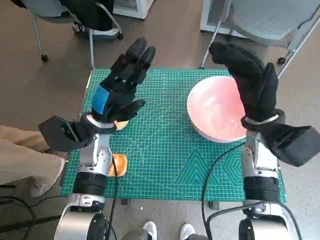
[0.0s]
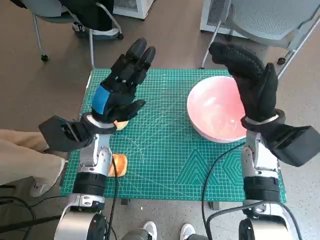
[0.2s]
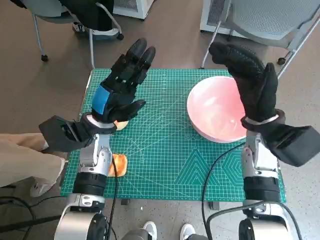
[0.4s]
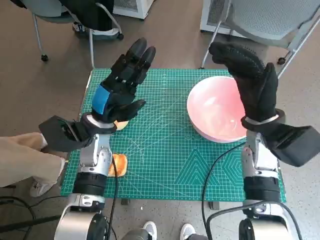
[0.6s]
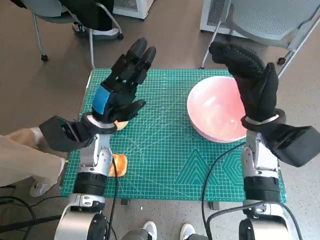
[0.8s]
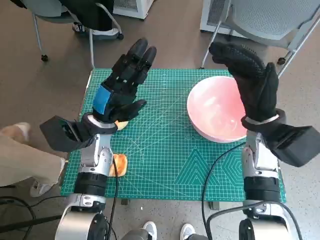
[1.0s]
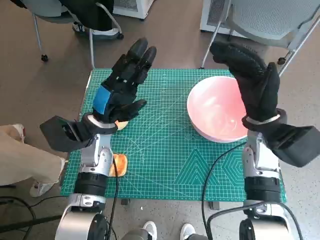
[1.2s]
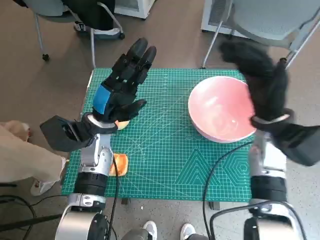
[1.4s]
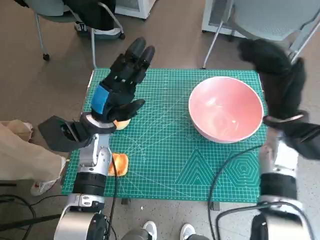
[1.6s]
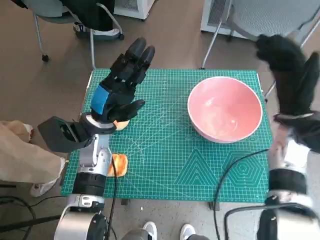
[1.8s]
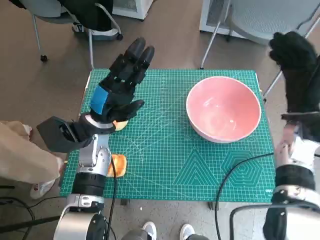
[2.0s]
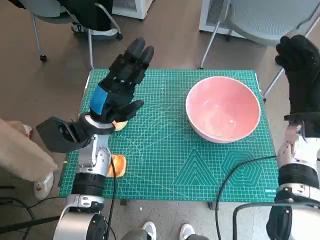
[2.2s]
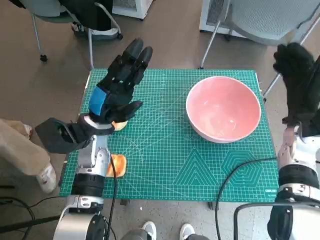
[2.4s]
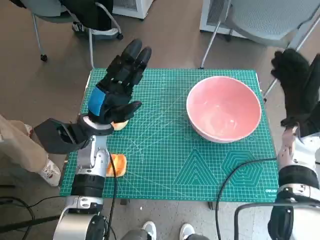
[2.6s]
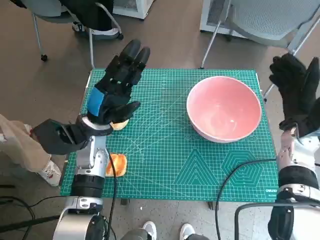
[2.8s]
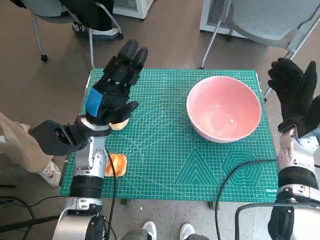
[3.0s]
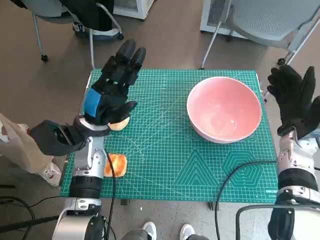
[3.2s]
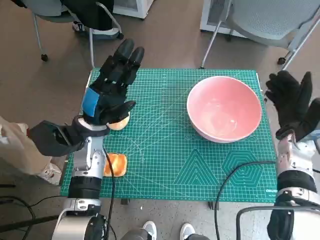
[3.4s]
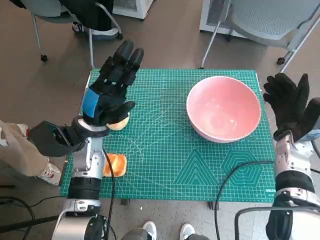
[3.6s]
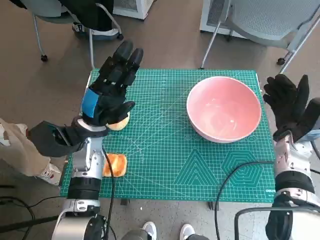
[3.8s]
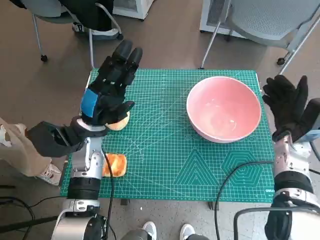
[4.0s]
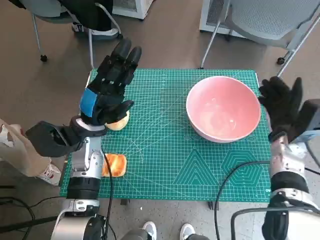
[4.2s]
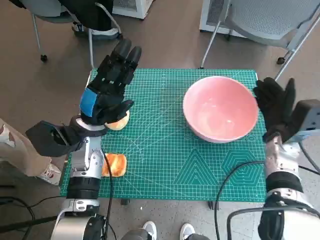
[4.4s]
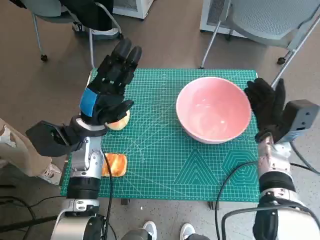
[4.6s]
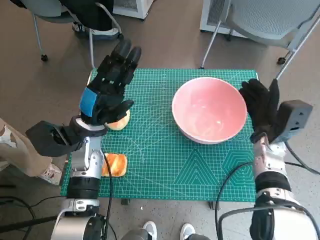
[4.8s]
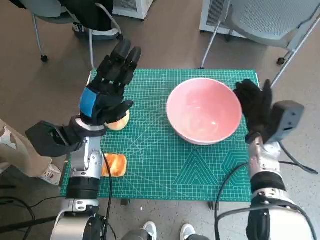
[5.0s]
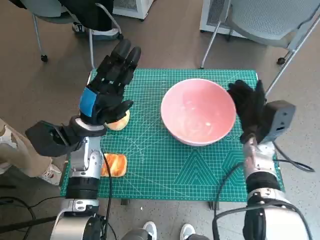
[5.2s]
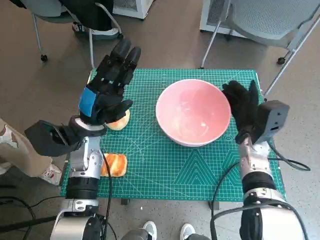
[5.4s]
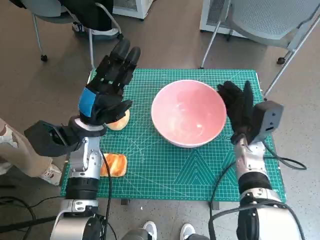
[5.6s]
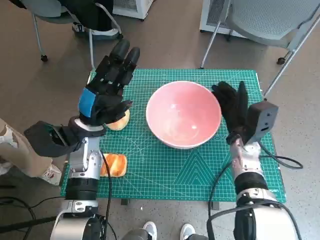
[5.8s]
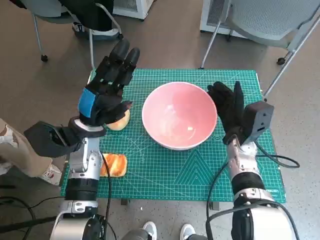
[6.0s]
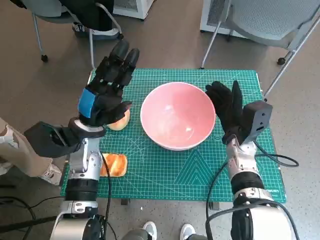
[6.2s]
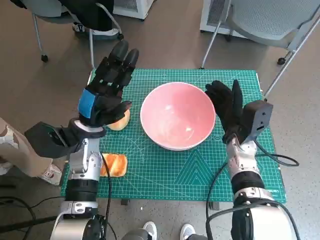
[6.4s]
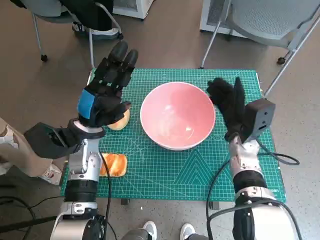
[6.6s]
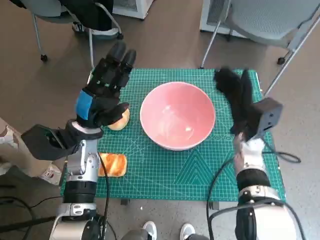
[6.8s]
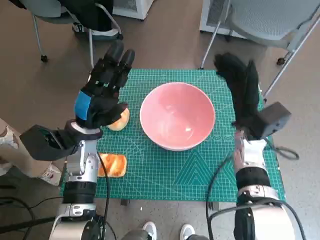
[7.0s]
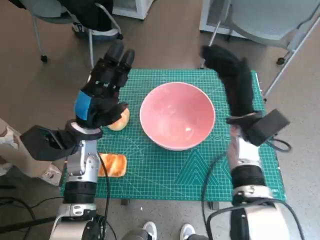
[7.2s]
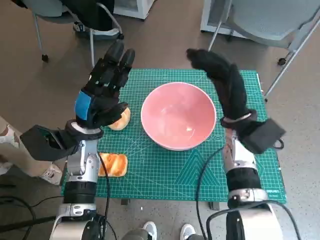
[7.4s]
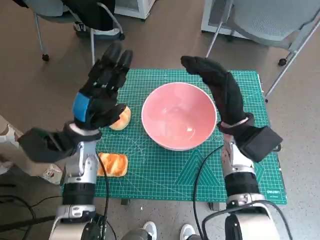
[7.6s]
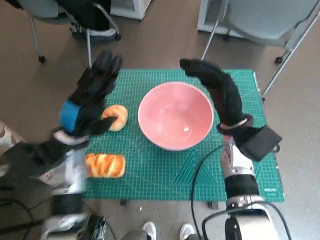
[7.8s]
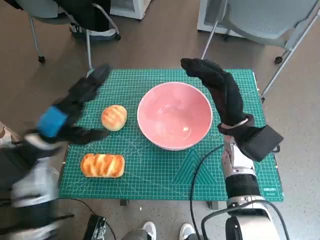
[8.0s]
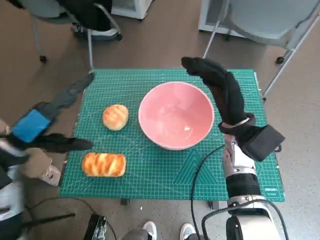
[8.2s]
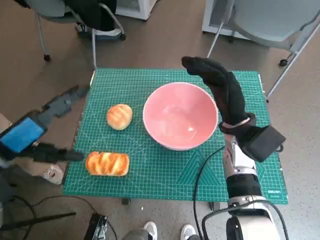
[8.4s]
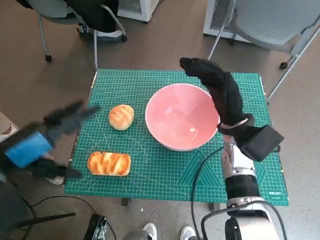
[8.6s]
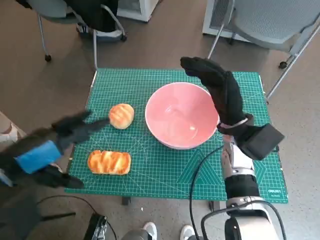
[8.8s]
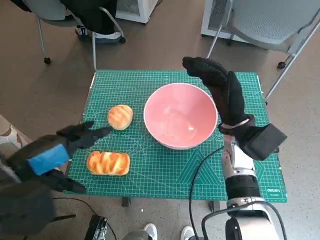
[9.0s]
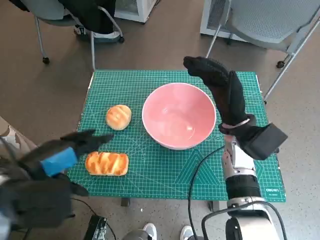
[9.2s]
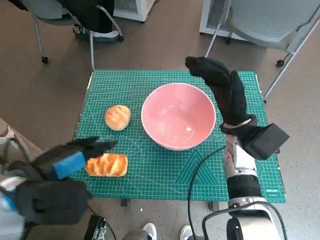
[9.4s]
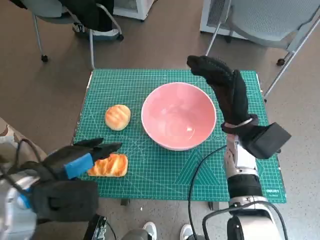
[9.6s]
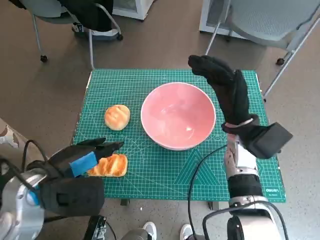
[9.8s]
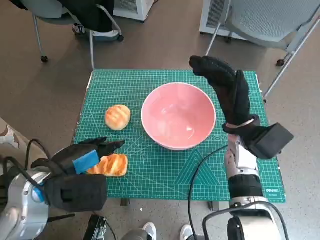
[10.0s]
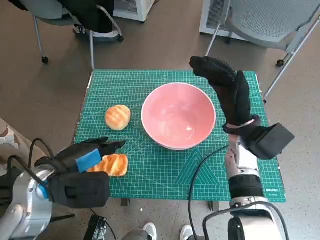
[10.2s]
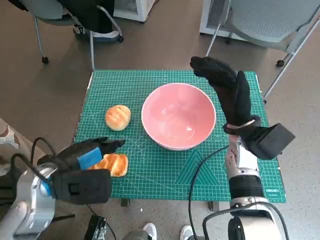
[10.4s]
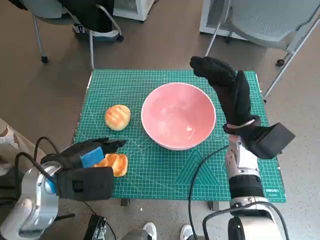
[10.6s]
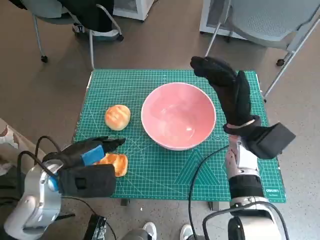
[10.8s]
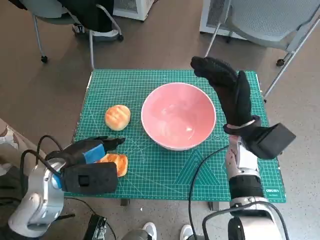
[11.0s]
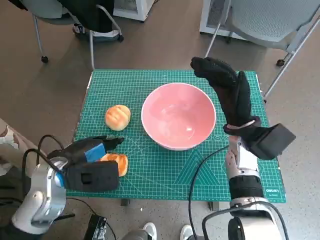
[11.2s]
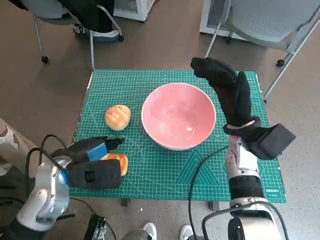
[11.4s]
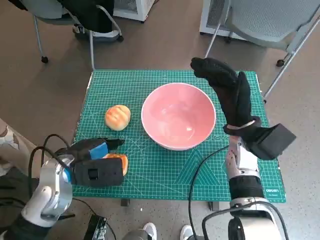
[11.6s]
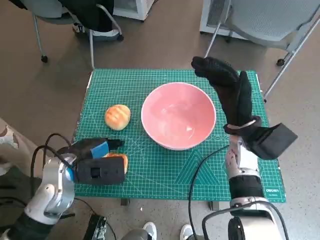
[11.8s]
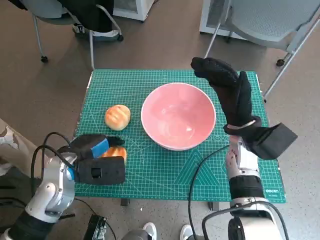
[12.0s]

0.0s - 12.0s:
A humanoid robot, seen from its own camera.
Step, 0.0s - 6.6s: Move the pink bowl to the center of table with right hand.
1.6s - 3.0s: The right hand heads to the right, covering roughly 5 cm.
3.0s - 4.4s: The hands make only small movements.
4.4s - 6.0s: The right hand is displaced to the left by some 10 cm.
6.0s - 7.6s: The right hand heads upward, covering about 5 cm.
7.6s - 9.0s: The left hand goes some 15 cm backward, upward and to the left.
9.0s - 10.4s: The left hand is displaced downward by about 5 cm.
10.4s - 12.0s: The left hand shifts by about 5 cm.

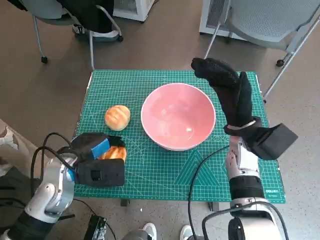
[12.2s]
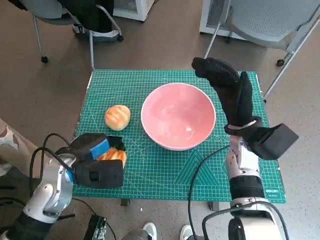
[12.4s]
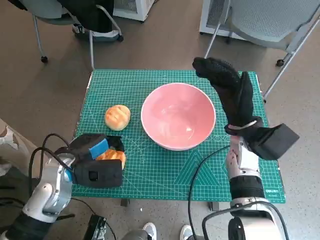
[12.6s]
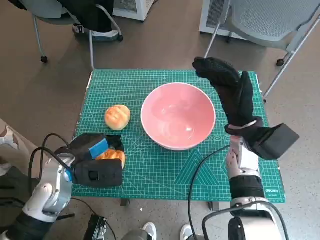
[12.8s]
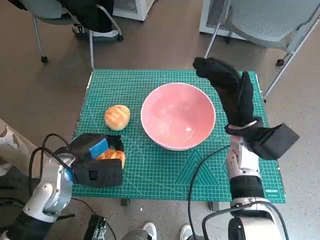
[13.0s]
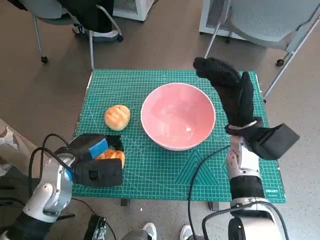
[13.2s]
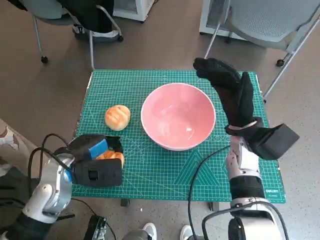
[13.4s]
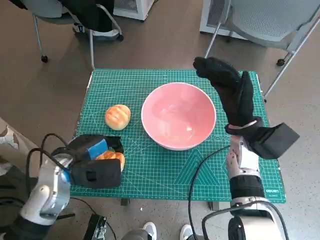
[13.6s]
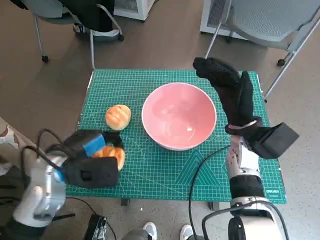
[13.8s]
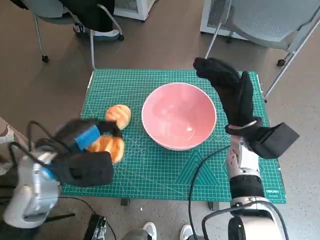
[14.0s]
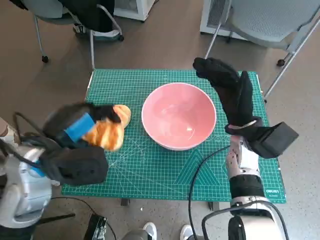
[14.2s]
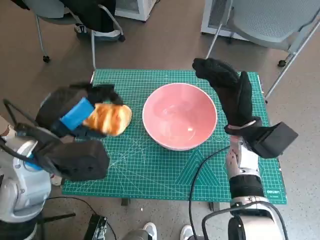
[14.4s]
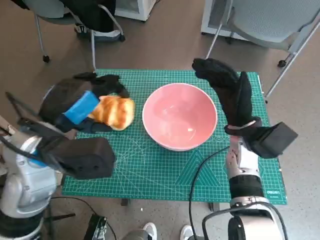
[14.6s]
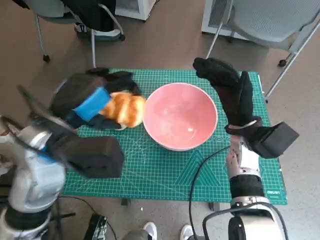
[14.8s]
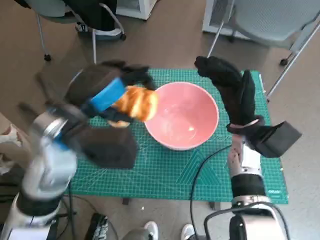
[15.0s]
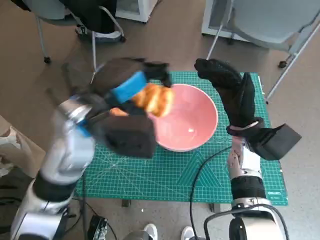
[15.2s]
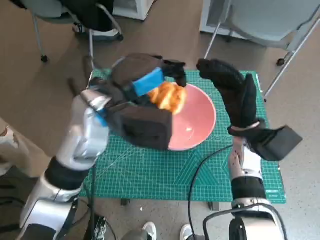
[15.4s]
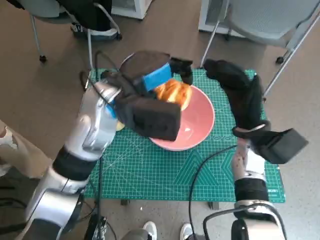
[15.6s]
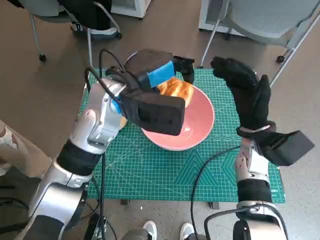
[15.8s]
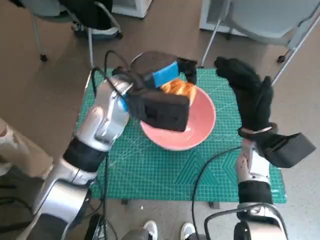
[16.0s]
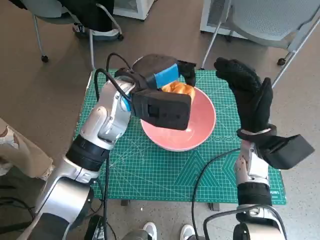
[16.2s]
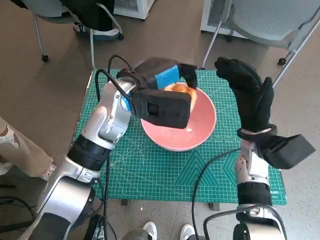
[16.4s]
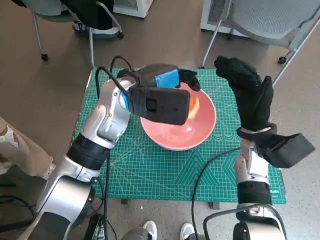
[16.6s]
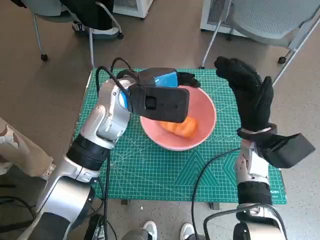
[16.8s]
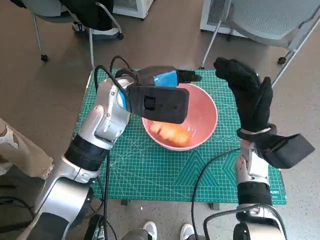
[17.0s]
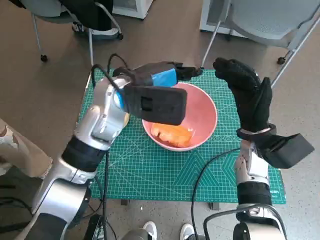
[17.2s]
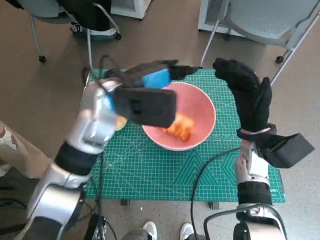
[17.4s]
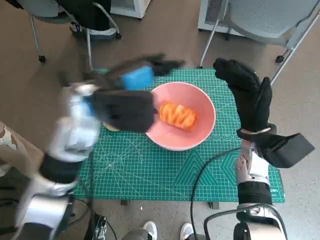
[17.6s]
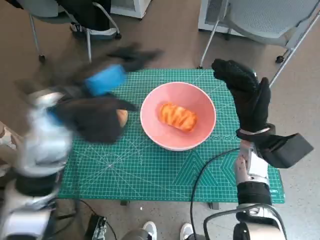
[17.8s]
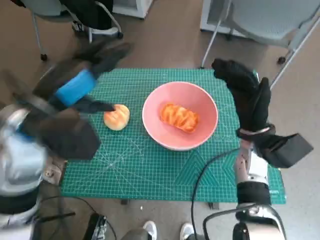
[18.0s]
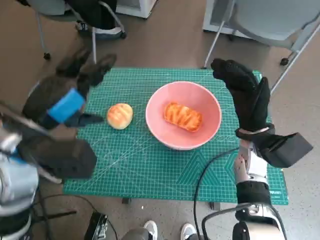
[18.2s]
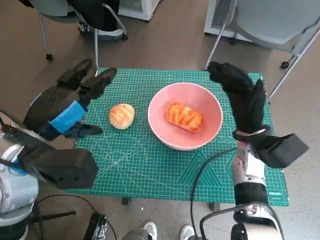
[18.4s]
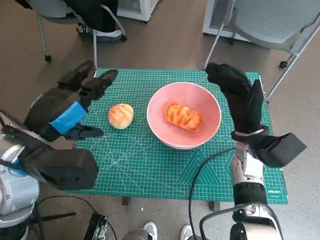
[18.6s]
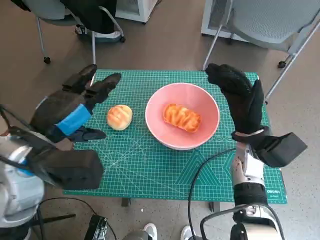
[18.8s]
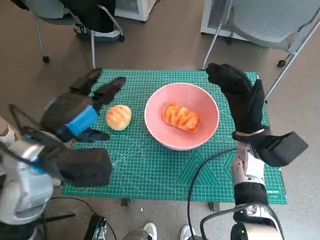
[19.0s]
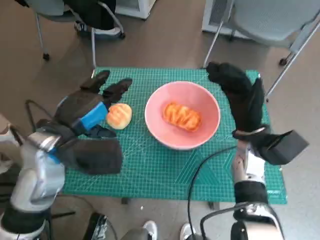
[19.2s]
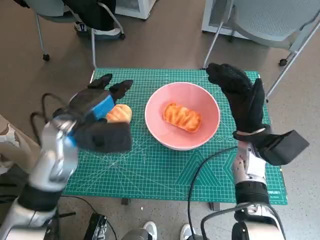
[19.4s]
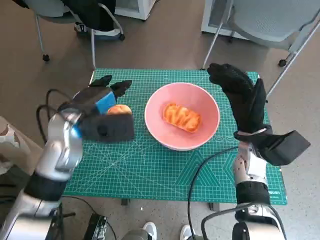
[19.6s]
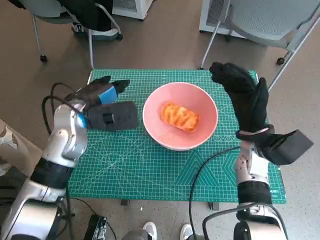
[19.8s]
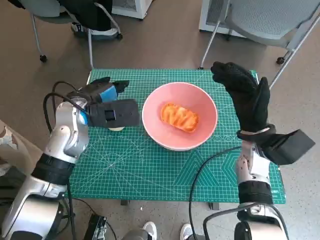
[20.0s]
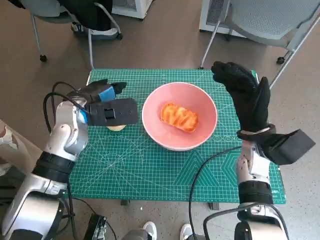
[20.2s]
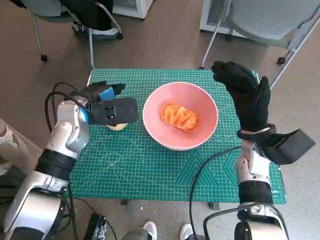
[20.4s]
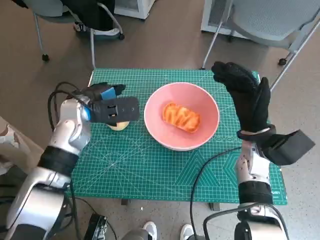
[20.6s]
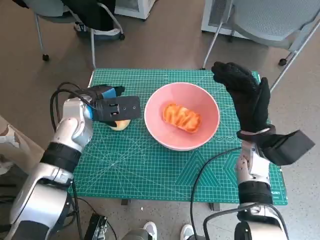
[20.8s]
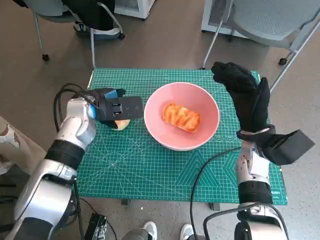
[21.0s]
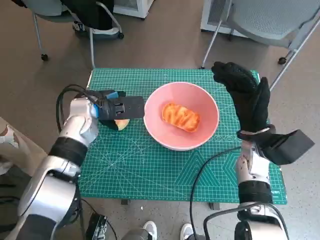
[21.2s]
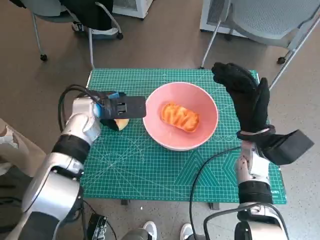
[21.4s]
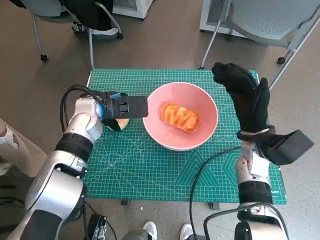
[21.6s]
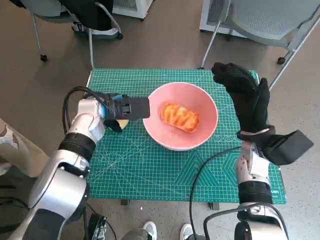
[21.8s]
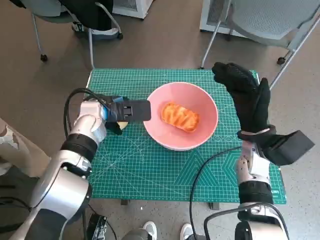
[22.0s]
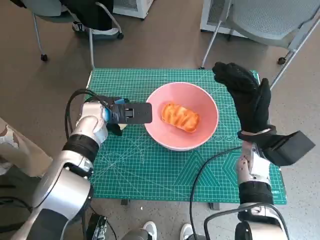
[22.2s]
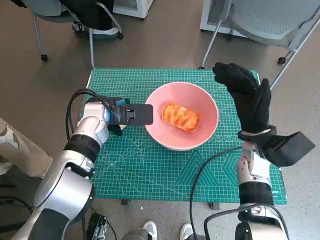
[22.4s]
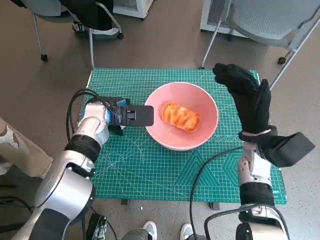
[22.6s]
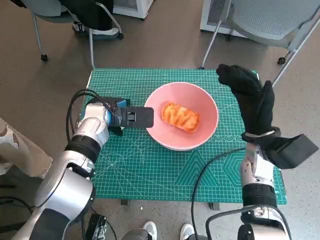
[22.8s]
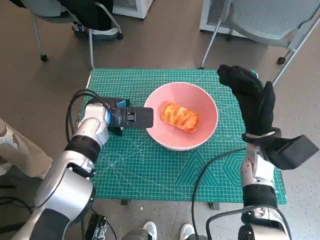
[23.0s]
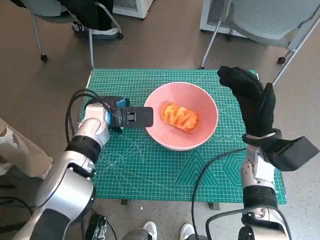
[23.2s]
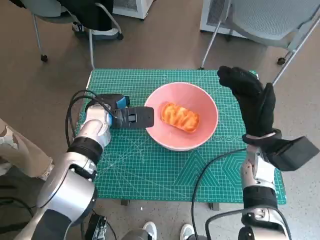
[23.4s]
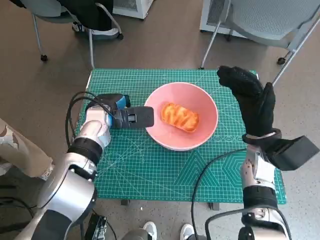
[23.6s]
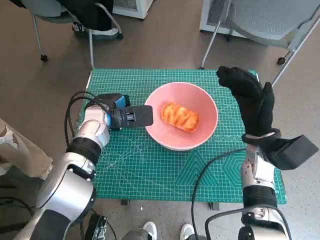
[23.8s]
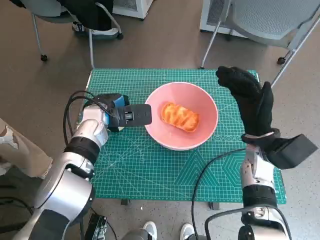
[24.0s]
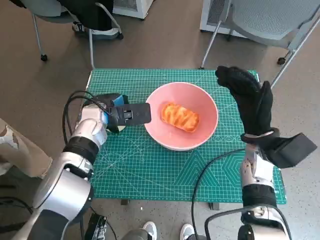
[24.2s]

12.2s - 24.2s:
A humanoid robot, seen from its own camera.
Step, 13.2s - 17.0s: Place the long bread in pink bowl with left hand.
Step, 17.2s - 23.4s: Grasp the round bread with left hand.
12.2s - 13.8s: There are only small adjustments of the hands.
13.8s - 15.2s: The left hand is displaced upward and to the right by some 15 cm.
15.2s - 16.6s: The left hand moves forward and to the right, about 10 cm.
16.6s - 18.2s: The left hand is displaced to the left and backward by roughly 15 cm.
18.2s - 19.8s: The left hand moves forward and downward, some 10 cm.
19.8s - 21.2s: There are only small adjustments of the hands.
21.2s - 24.2s: The hands make only small movements.
